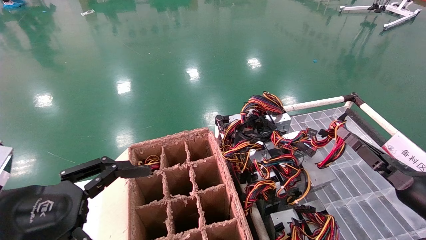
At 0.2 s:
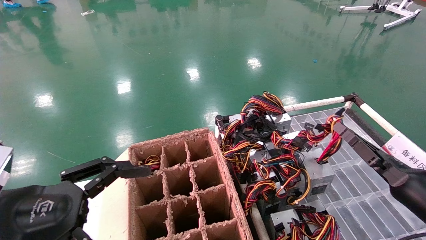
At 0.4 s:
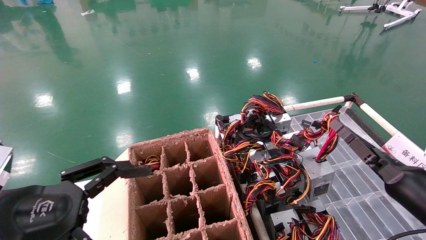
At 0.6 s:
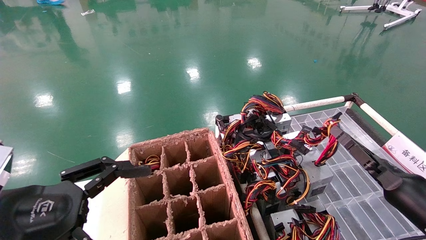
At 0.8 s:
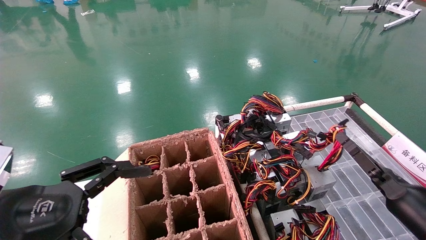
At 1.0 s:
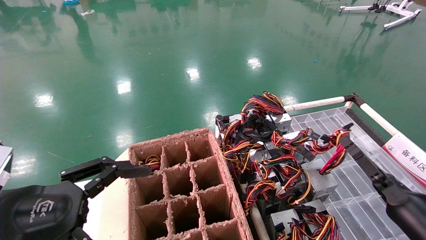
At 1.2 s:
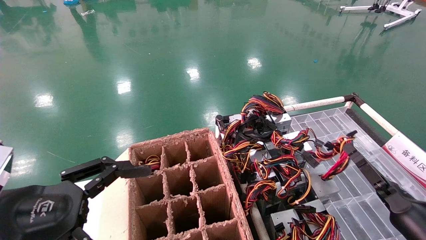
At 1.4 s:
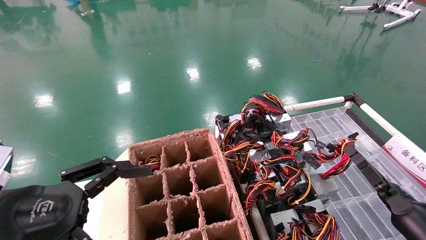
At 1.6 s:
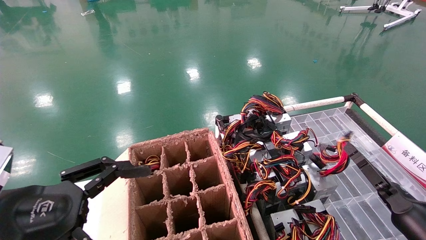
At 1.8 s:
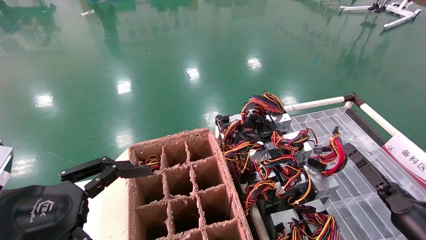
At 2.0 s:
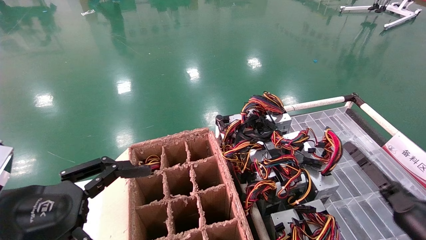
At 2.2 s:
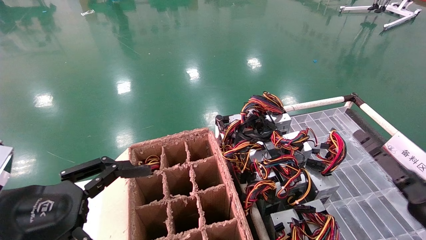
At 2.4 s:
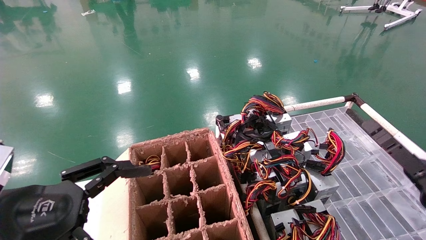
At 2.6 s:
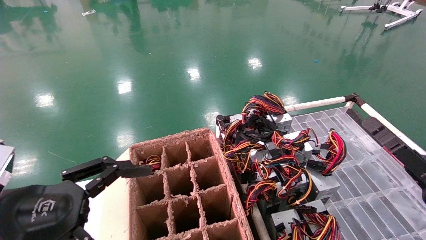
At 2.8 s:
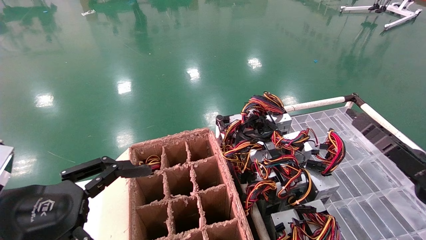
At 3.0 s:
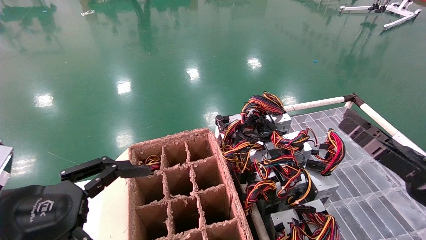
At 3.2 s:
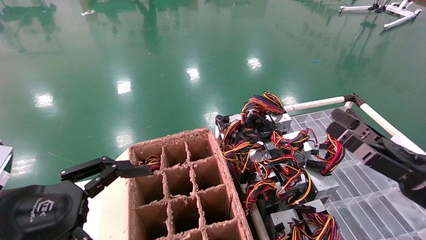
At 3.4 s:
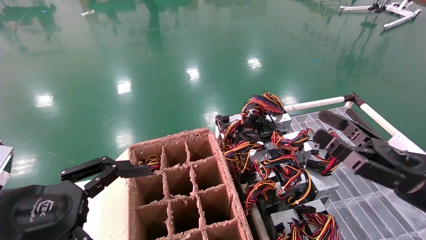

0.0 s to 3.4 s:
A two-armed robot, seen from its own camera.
0.0 to 1.6 s: The right gripper moves downward, about 10 cm.
1.6 to 3.4 s: The right gripper is displaced upward and to the left by roughly 15 cm, and opens.

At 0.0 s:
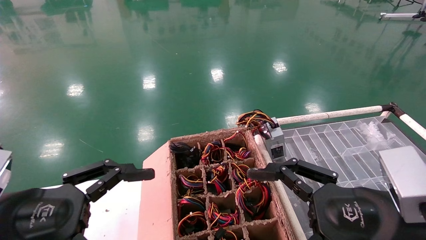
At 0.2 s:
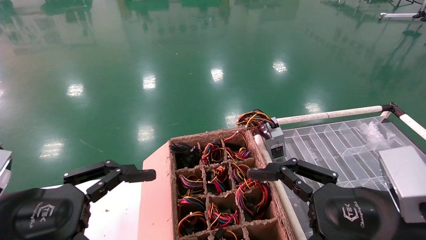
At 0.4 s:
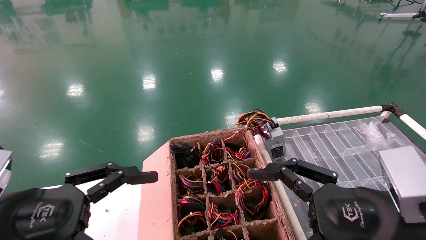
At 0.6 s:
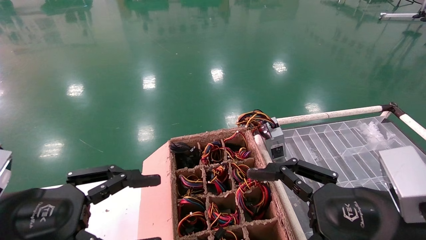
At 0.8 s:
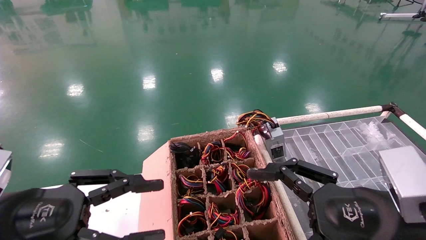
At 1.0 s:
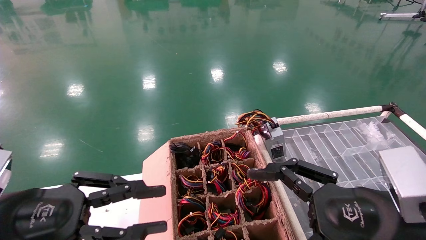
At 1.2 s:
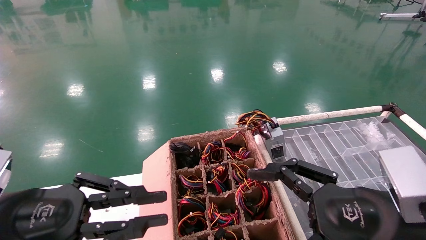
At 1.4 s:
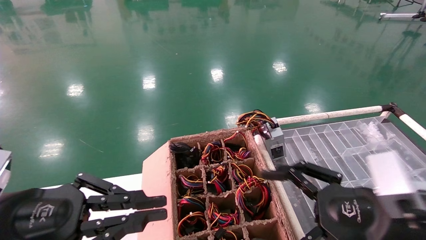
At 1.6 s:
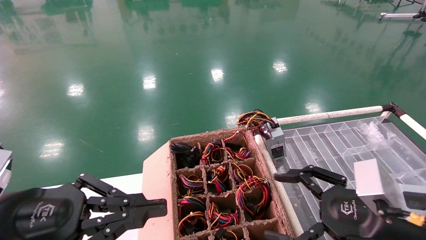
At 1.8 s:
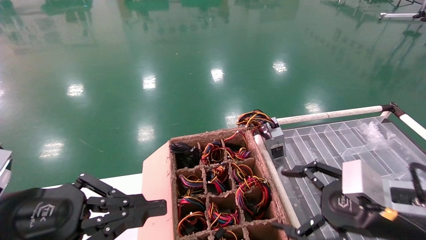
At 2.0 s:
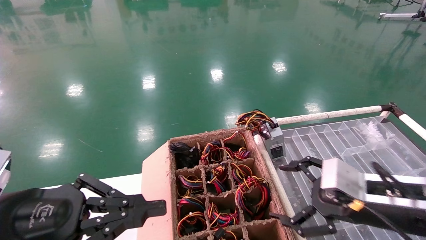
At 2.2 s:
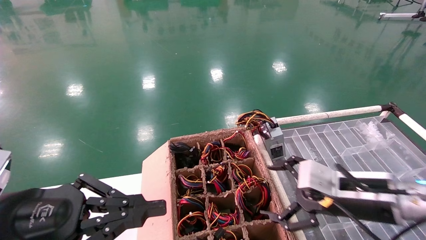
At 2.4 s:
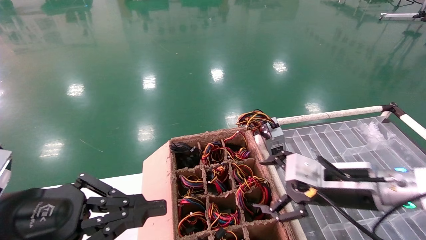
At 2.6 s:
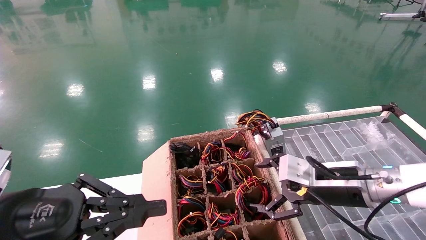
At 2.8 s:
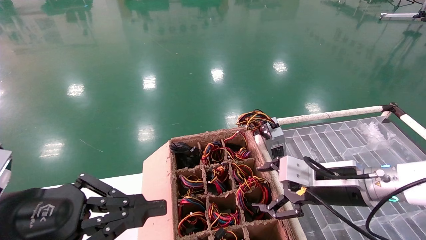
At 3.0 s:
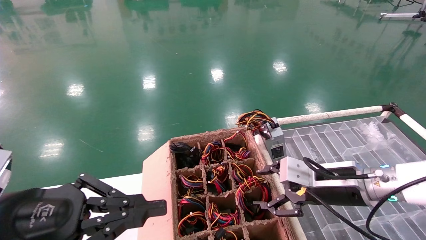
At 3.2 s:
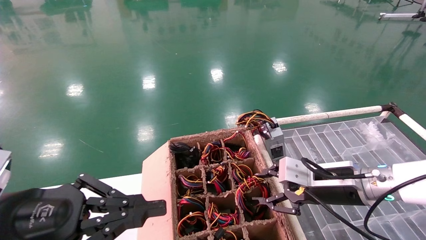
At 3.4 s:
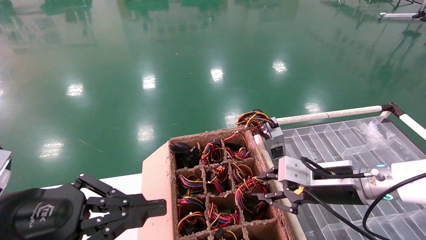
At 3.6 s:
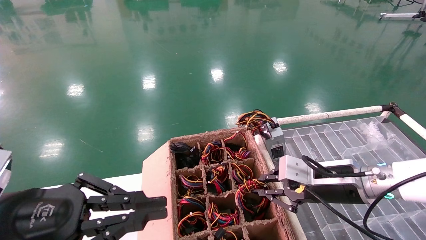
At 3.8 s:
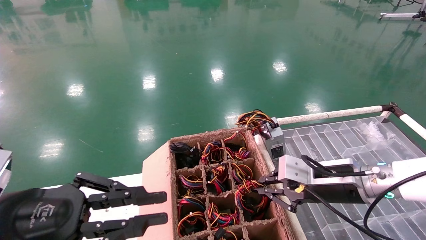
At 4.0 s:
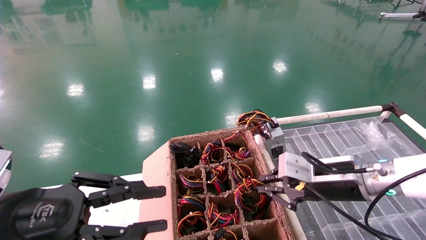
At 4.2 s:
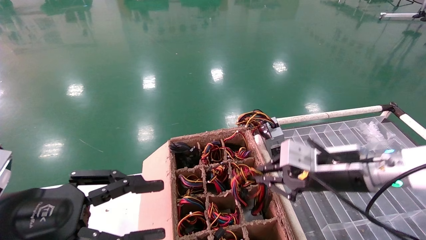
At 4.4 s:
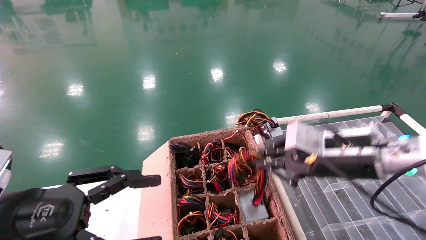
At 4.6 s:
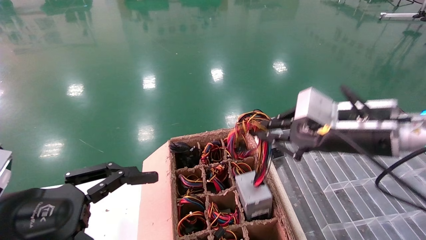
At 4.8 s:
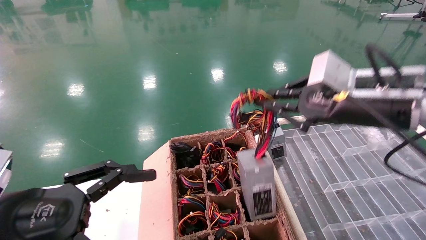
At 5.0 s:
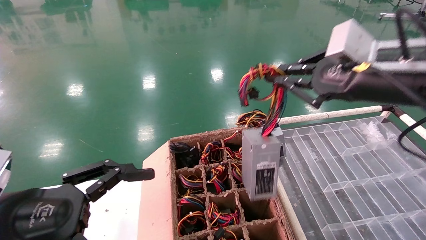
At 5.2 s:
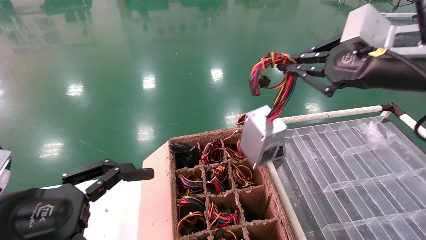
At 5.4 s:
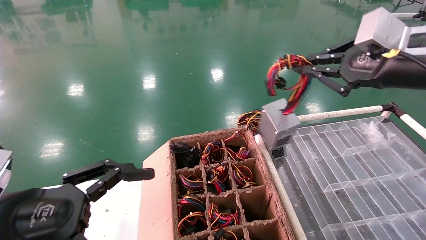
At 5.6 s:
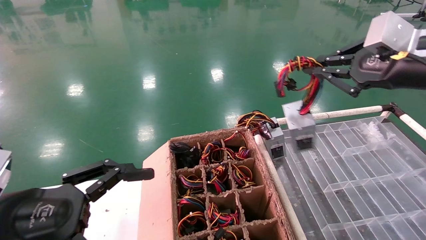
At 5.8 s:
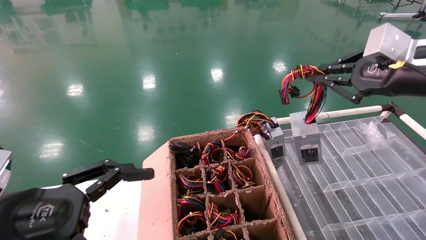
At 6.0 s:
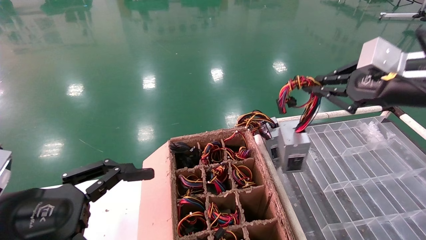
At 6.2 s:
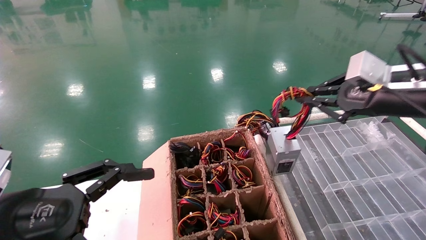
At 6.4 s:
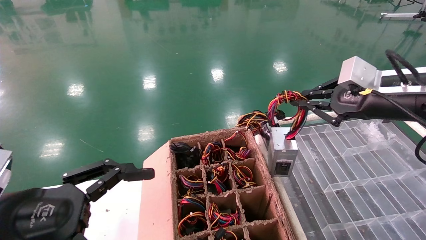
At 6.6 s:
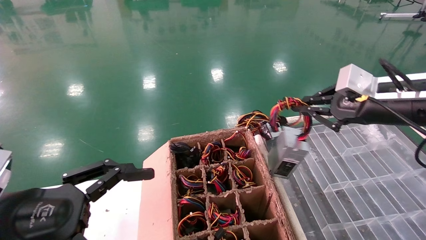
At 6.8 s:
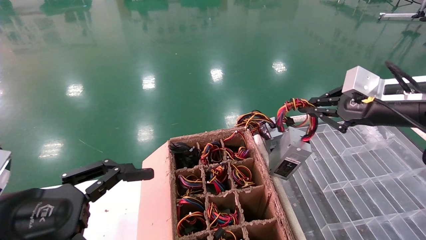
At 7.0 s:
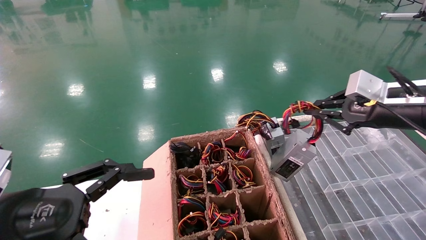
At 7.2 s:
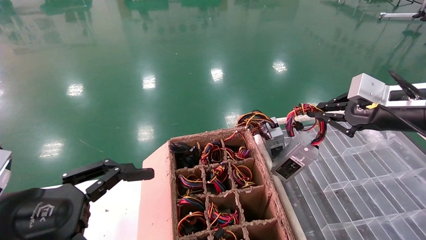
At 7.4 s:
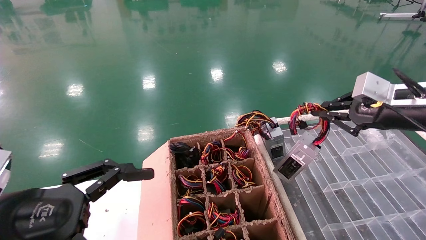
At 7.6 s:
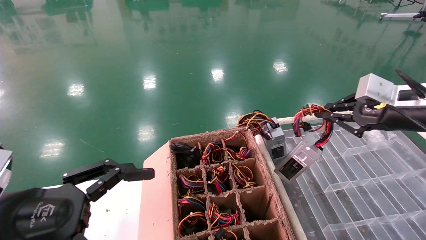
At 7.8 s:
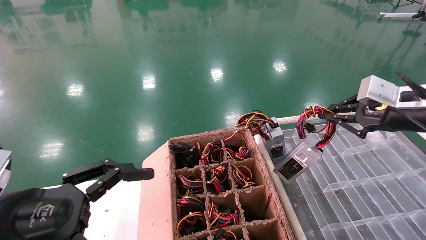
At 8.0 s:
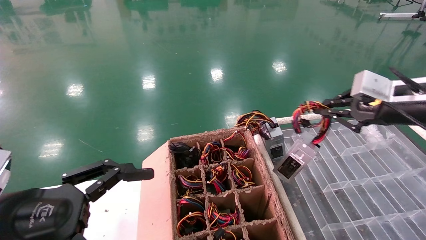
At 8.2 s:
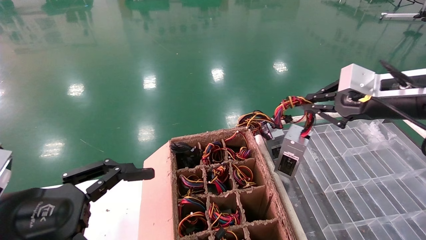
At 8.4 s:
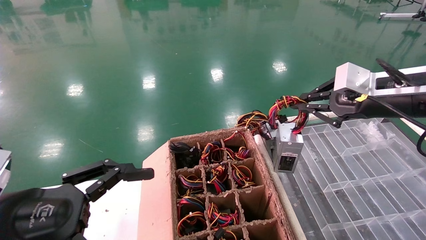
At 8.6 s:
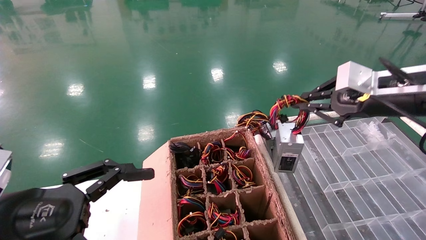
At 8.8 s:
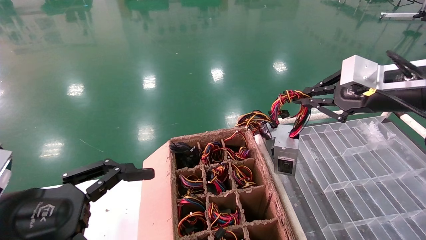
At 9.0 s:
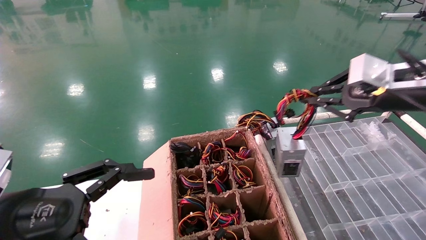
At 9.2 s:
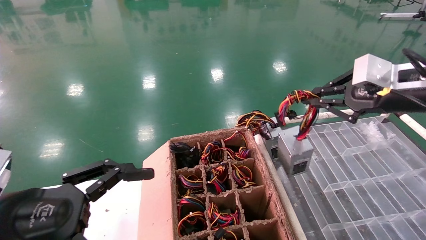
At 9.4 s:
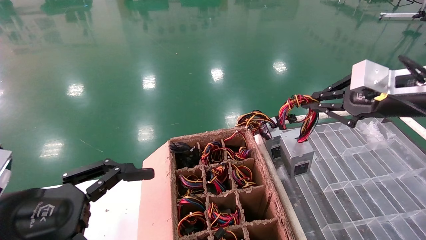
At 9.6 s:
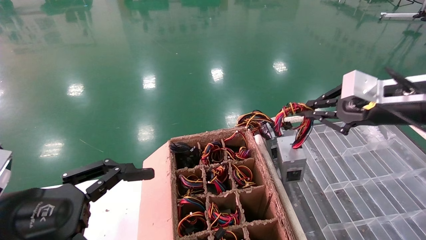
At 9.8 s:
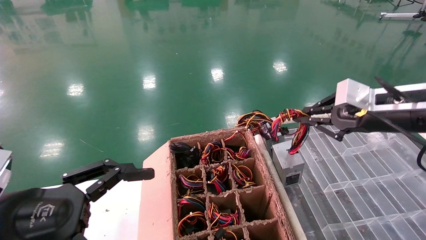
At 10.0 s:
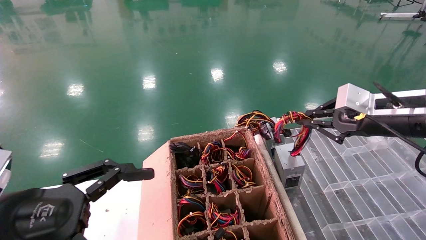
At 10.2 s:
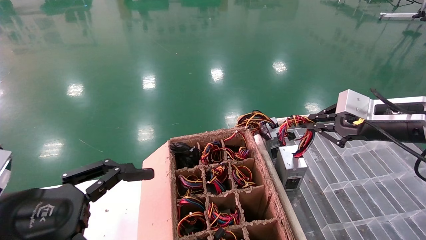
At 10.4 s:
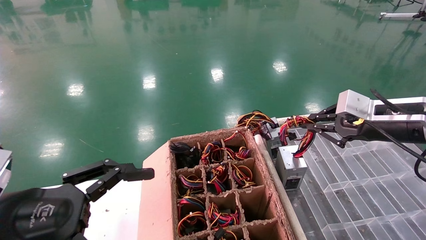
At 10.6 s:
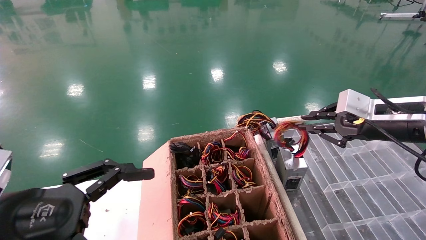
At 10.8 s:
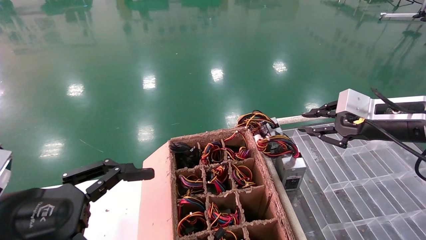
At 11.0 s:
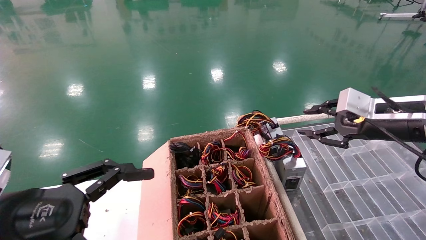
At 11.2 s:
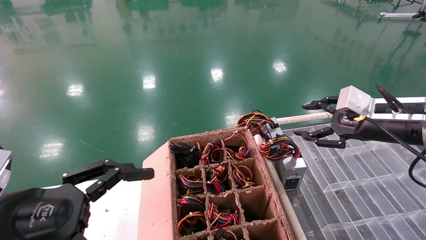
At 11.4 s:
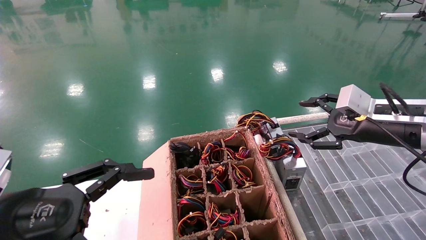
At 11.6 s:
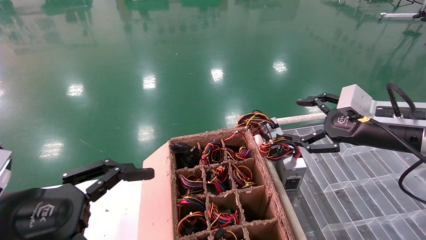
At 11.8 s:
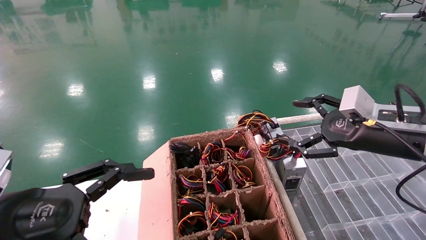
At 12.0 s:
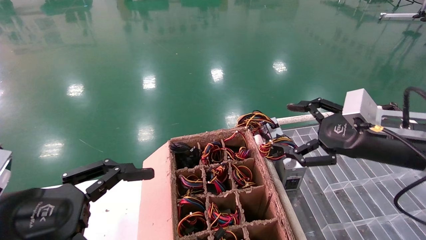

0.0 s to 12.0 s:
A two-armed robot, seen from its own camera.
Step, 1.8 to 4.0 s: Grab and lift the power supply from the large box.
Step, 4.2 to 10.6 s: Place the power supply on the operating table.
0.0 to 1.6 s: The right gripper shifts by some 5 cm. Meanwhile the left gripper closes up.
1.6 to 3.0 s: The right gripper moves forward, roughly 10 cm.
3.0 to 4.4 s: The left gripper opens. Meanwhile the right gripper heads upward, covering about 10 cm, and closes its fingers.
4.4 to 6.0 s: The right gripper shifts some 15 cm upward and to the right; the left gripper opens up.
6.0 to 7.6 s: The right gripper ends up roughly 5 cm from where it was.
7.6 to 9.0 s: The right gripper shifts by approximately 5 cm.
9.0 to 10.4 s: The right gripper travels downward by some 5 cm.
10.4 to 12.0 s: The right gripper ends up about 5 cm from where it was, and opens up.
